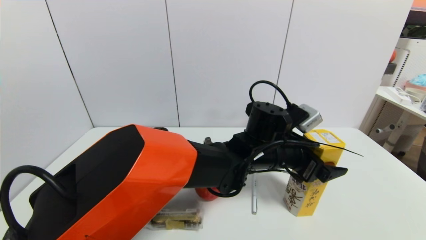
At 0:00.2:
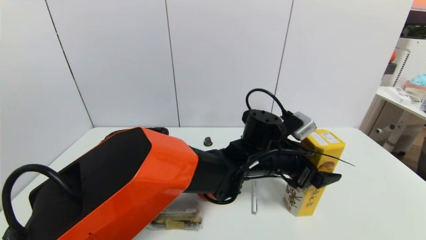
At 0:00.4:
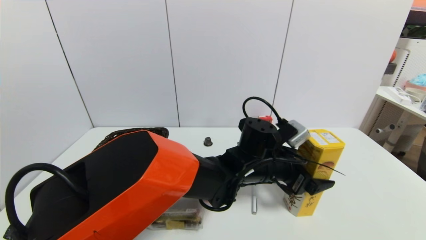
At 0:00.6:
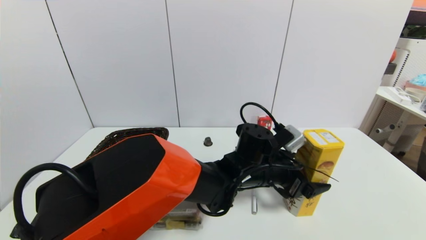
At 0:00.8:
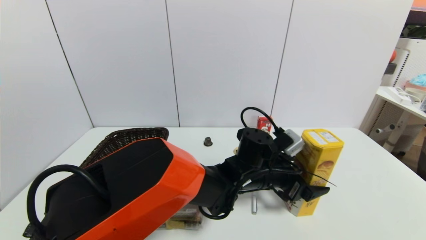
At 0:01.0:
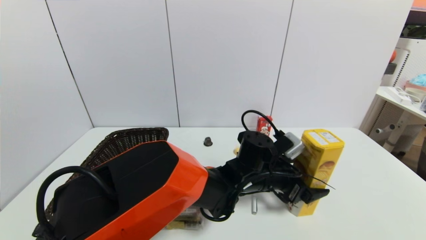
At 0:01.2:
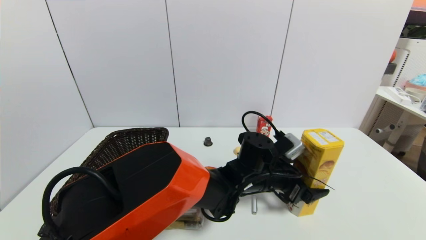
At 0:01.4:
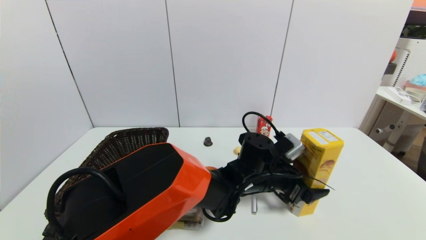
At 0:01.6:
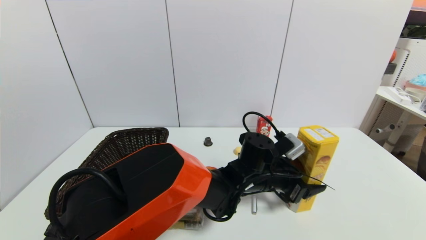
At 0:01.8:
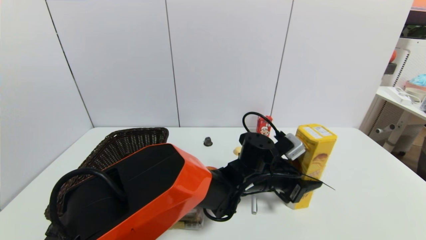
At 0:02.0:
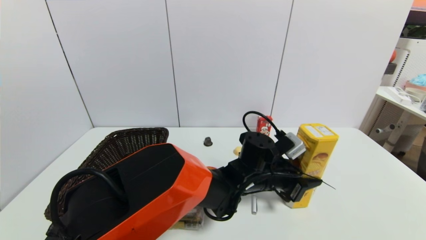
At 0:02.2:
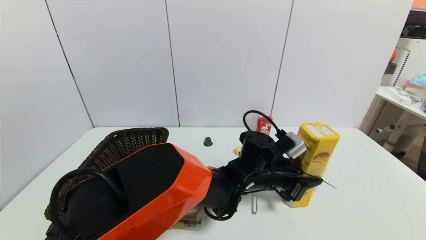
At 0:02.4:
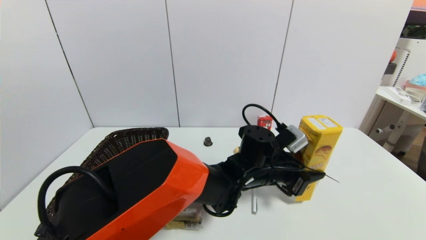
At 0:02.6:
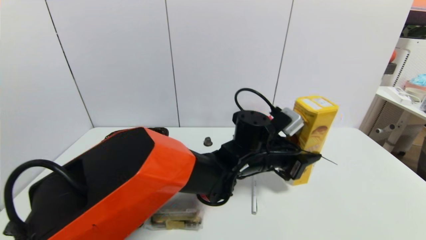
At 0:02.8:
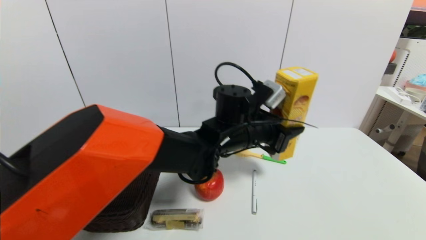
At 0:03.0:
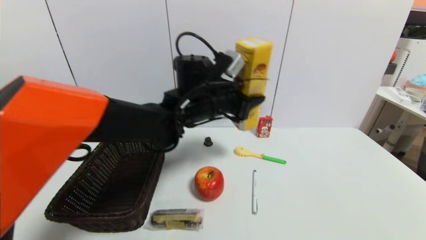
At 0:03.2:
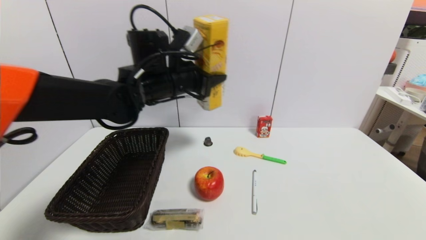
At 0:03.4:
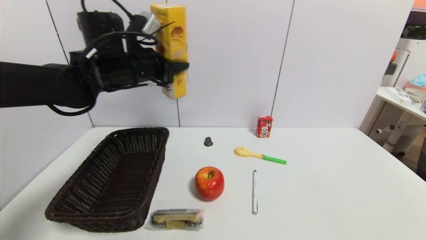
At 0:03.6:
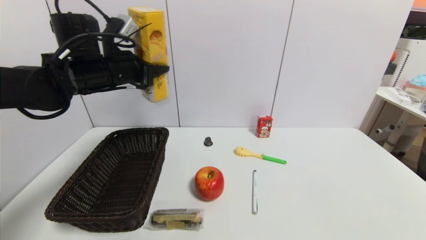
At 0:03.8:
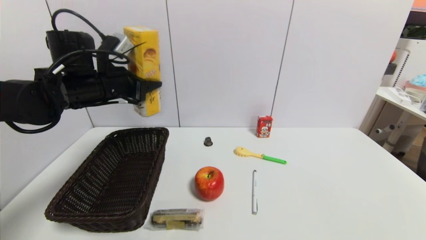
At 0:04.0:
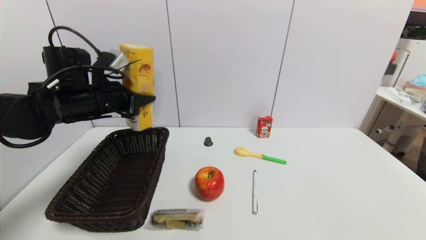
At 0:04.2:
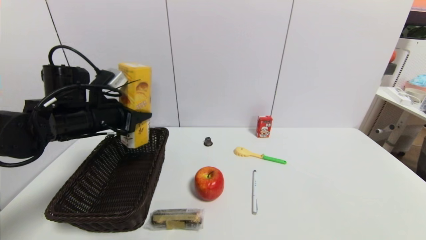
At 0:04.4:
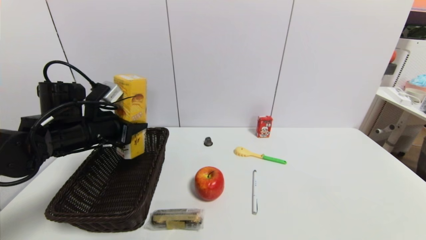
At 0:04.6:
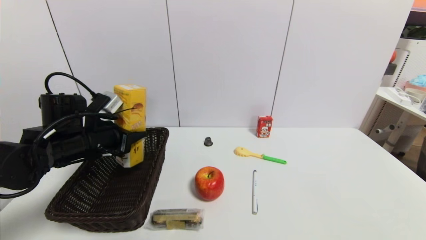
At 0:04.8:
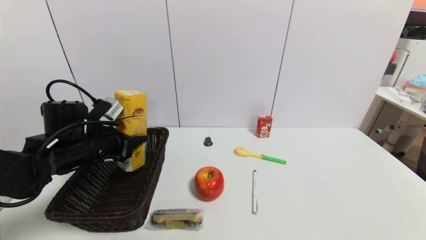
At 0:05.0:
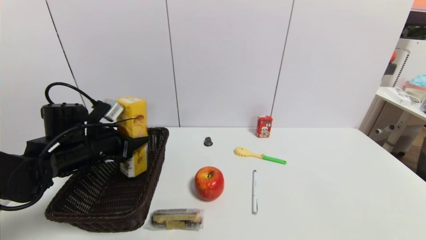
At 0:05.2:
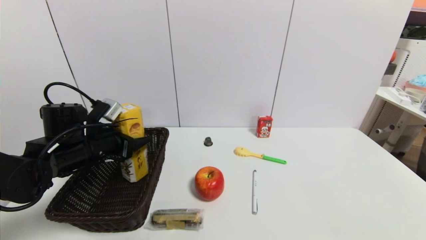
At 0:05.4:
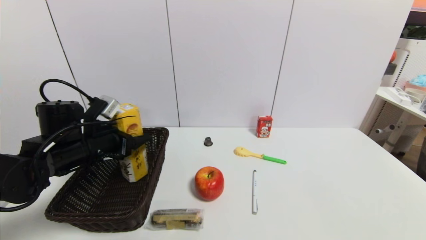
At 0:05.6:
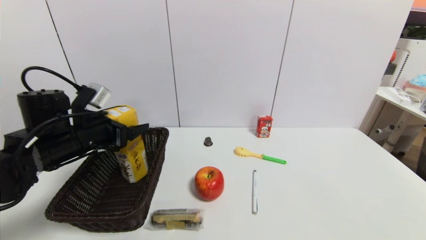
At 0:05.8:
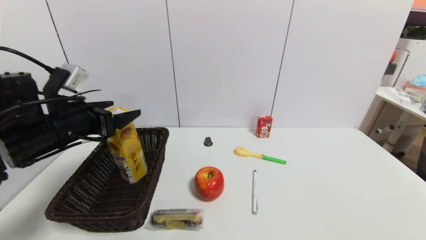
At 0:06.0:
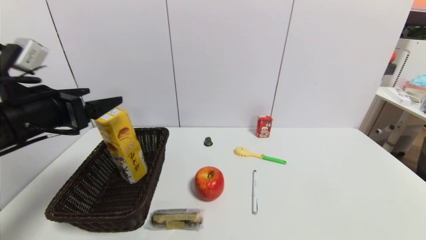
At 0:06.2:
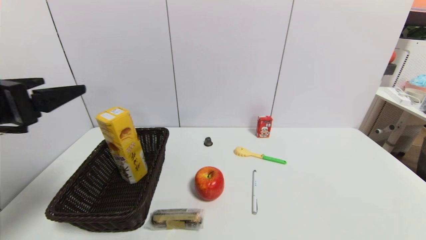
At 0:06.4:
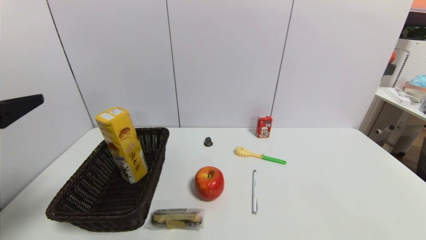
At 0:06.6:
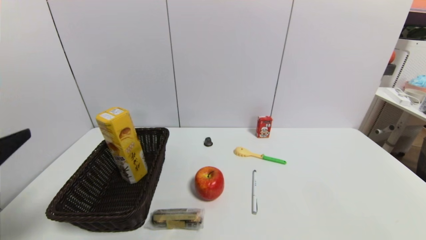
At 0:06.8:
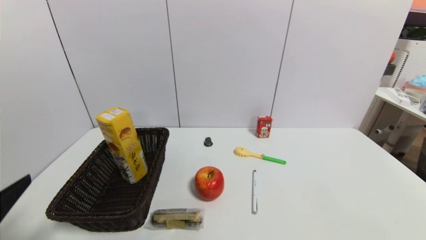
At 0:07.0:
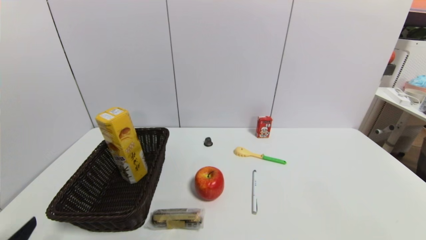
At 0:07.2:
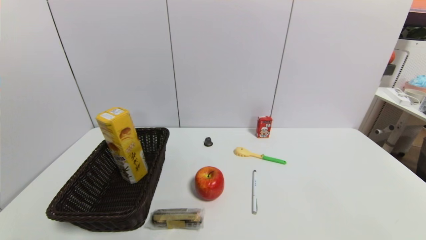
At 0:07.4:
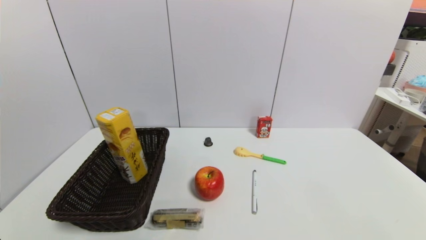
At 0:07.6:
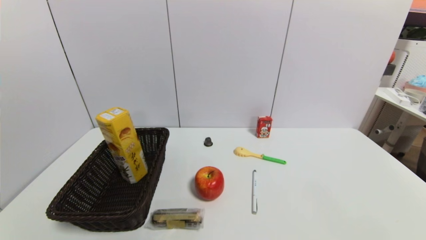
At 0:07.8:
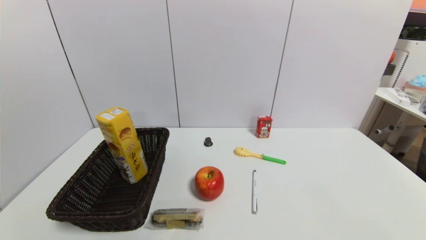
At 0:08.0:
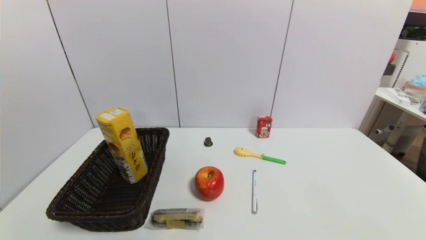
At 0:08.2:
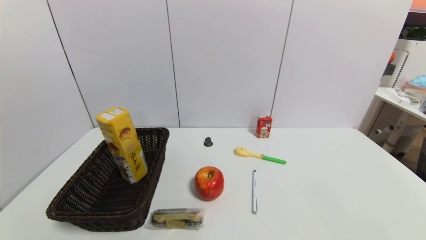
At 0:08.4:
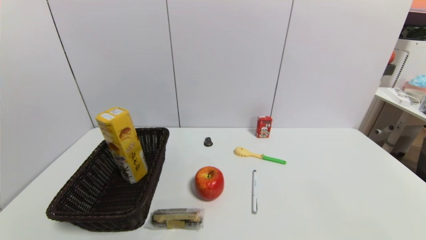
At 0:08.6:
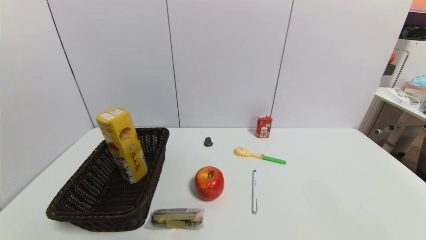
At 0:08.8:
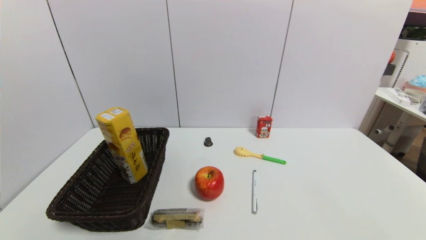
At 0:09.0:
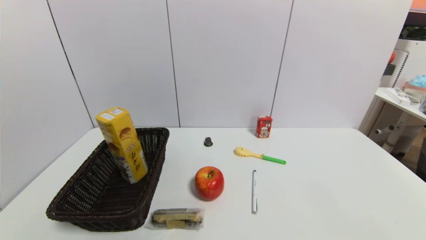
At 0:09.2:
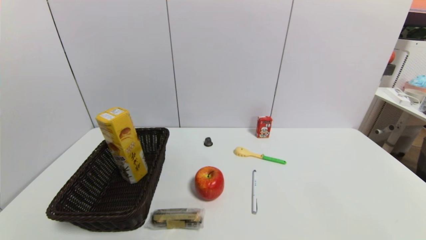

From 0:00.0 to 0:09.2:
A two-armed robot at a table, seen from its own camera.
Task of the whole recording: use a gripper to pick the target object and place on the brown basket.
Step, from 0:02.0 to 0:06.2: Place the potato chips into the basket with the left gripper.
From 0:00.0 to 0:01.6: The left gripper heads downward, covering some 5 cm, and closes its fingers.
From 0:01.6 to 0:03.0: The left gripper shifts about 20 cm upward and to the left, and closes up.
From 0:03.0 to 0:04.6: The left gripper moves to the left, about 25 cm.
From 0:04.6 to 0:06.2: The left gripper moves backward and upward, some 20 cm, and opens up.
From 0:06.2 to 0:07.6: The left gripper moves downward and backward, roughly 30 cm.

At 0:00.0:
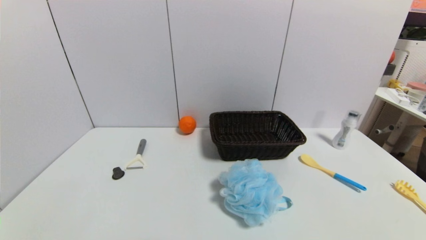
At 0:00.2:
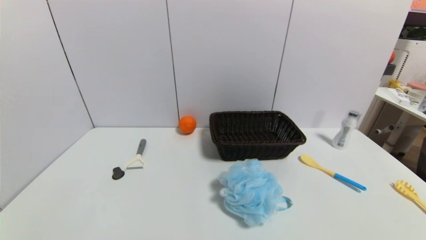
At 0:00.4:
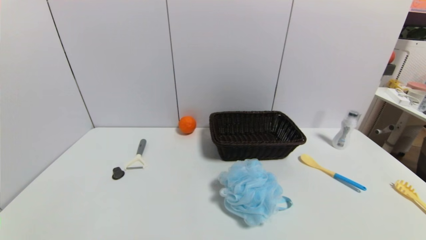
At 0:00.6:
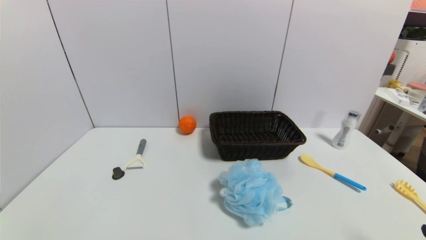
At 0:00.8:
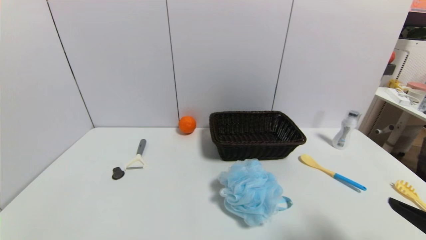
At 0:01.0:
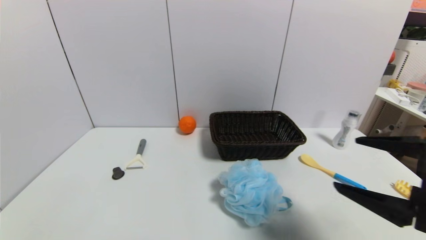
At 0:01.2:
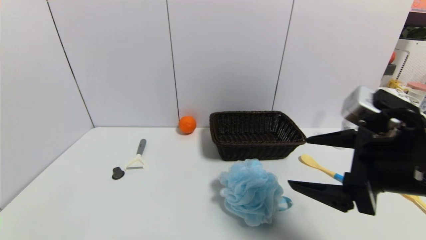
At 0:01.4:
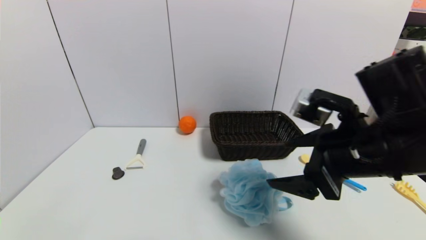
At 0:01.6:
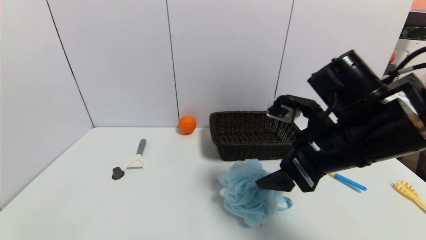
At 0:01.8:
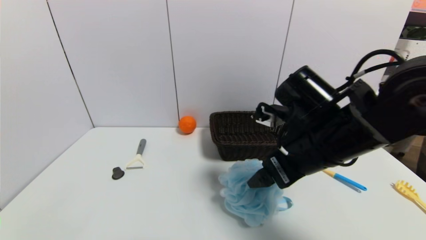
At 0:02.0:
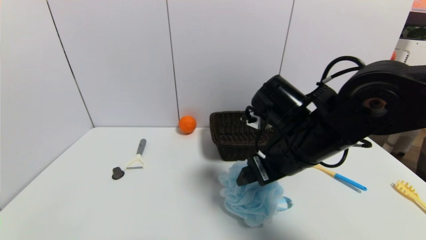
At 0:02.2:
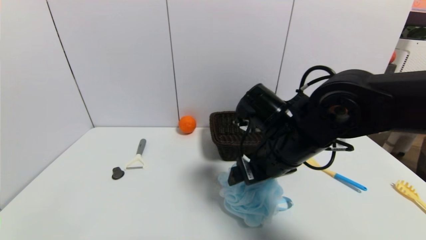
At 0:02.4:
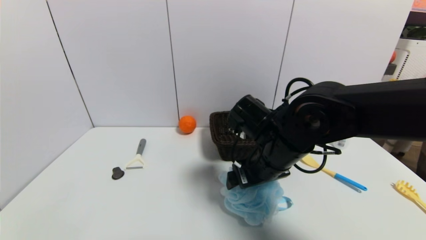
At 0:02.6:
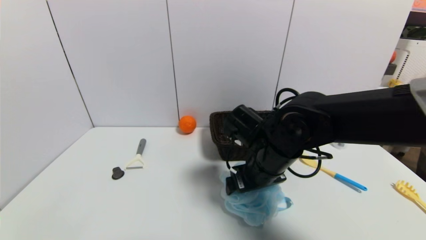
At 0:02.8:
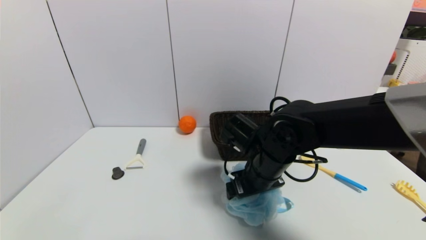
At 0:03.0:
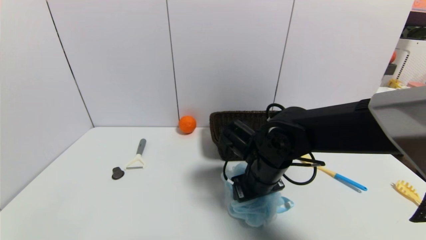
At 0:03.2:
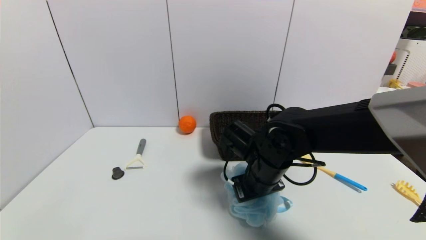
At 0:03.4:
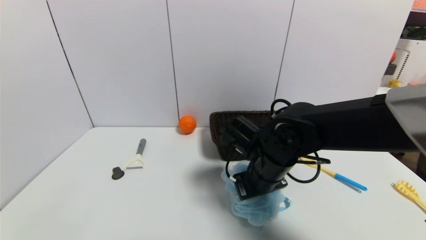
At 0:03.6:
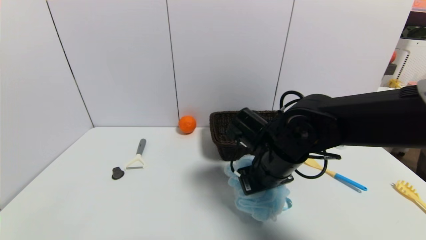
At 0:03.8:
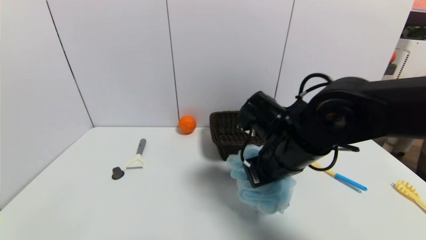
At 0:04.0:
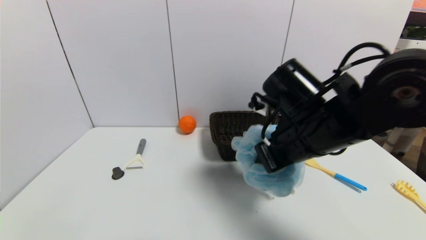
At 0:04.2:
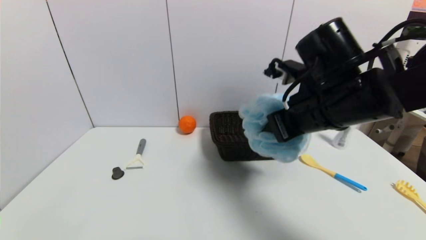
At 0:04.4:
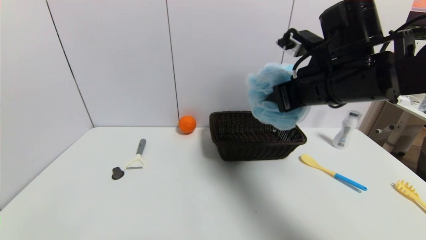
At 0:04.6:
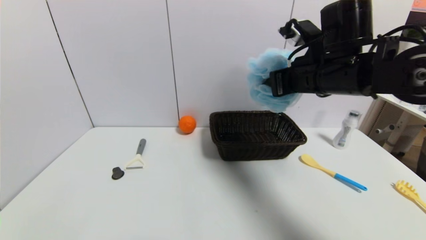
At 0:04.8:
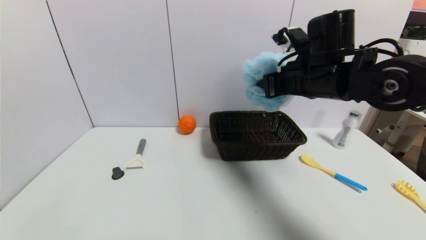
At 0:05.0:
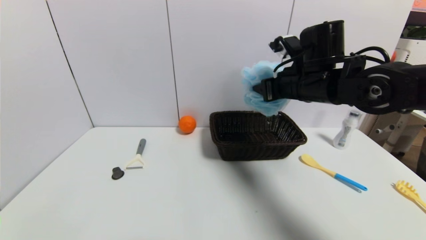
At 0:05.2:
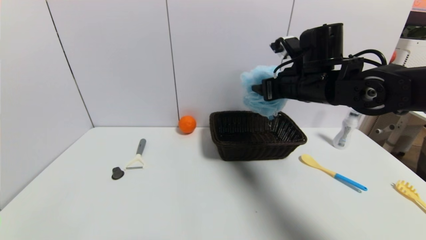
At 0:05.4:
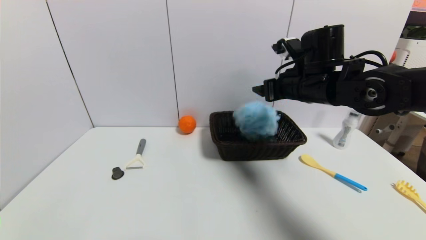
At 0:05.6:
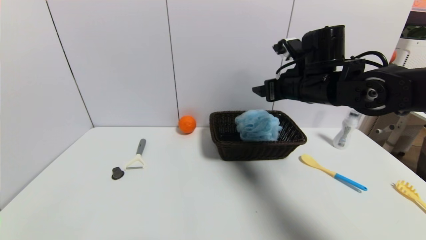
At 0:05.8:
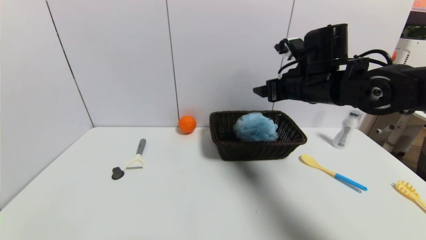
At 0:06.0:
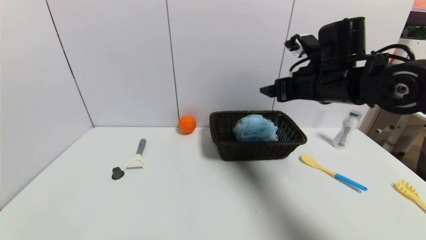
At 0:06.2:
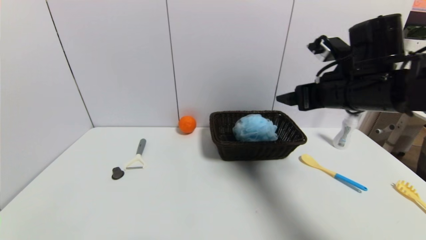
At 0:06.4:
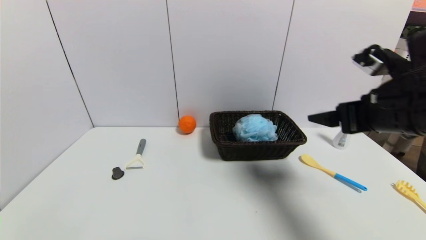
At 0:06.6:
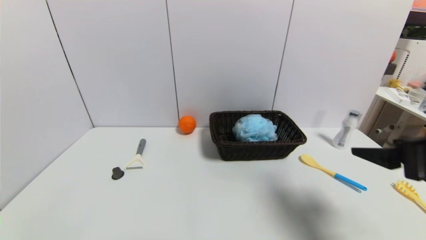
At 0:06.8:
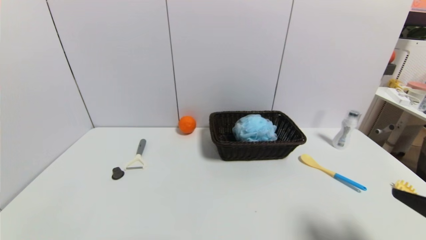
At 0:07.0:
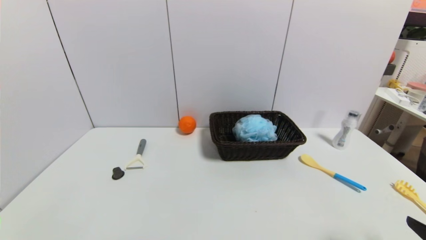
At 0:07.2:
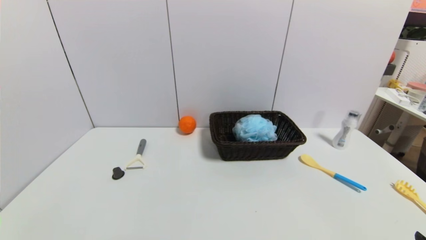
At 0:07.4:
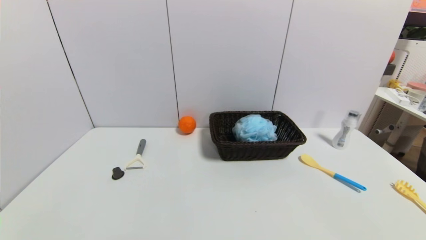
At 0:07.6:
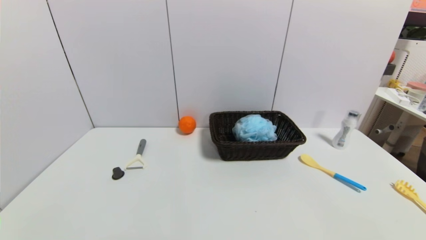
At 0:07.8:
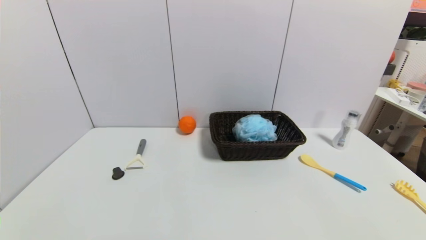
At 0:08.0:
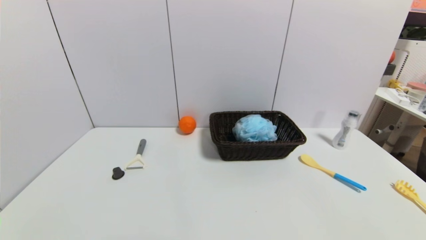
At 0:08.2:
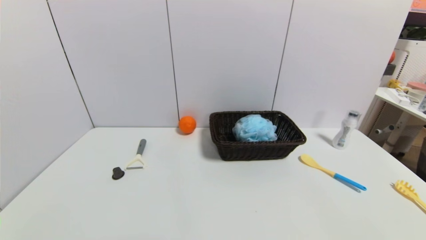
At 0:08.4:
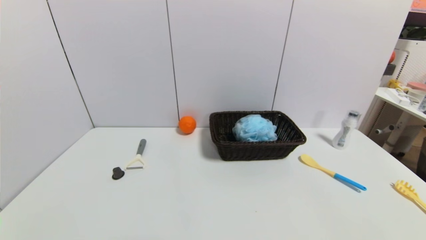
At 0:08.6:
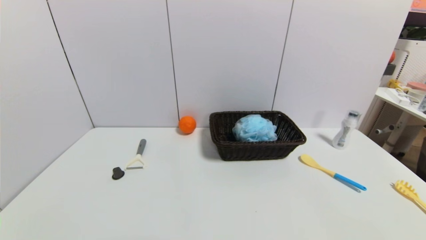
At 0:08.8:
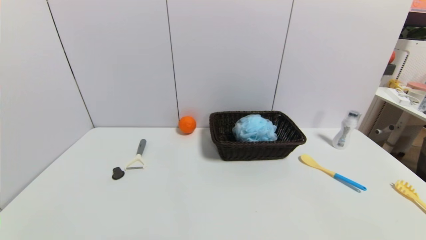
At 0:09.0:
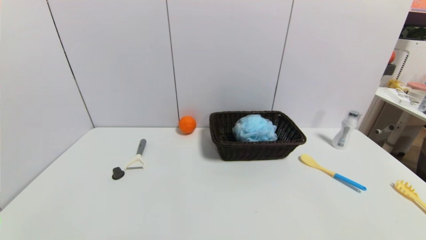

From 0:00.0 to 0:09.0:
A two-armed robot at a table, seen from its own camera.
Task of the whole recording: use a gripper to pick the target object and place on the brown basket.
Step, from 0:00.0 to 0:03.4: Grasp the shower sphere with the right gripper.
Step, from 0:03.6 to 0:05.8: Place the shower sphere into the basket with the right gripper.
From 0:00.0 to 0:01.6: The right gripper shifts roughly 35 cm forward, to the left and upward.
From 0:01.6 to 0:03.0: The right gripper heads downward, to the left and forward, covering roughly 15 cm, and closes up.
From 0:03.0 to 0:04.4: The right gripper moves upward and to the right, approximately 20 cm, and closes up.
From 0:04.4 to 0:06.0: The right gripper ends up approximately 5 cm from where it was, and opens its fingers.
From 0:06.0 to 0:07.6: The right gripper heads backward, downward and to the right, covering some 40 cm.
